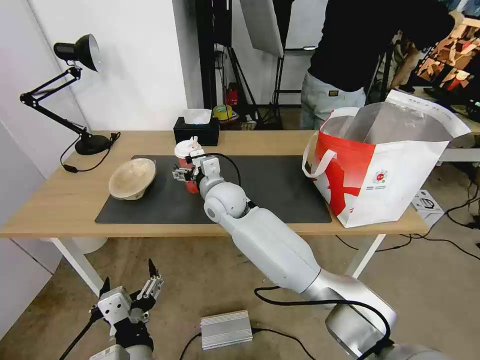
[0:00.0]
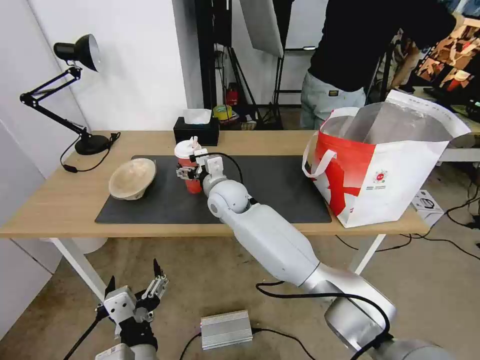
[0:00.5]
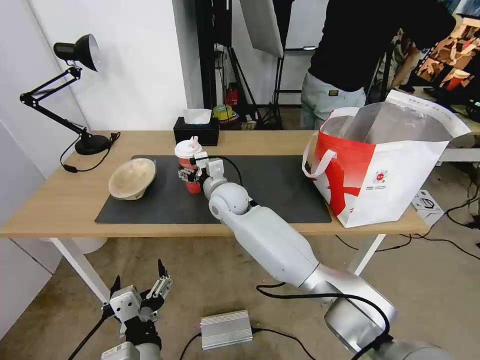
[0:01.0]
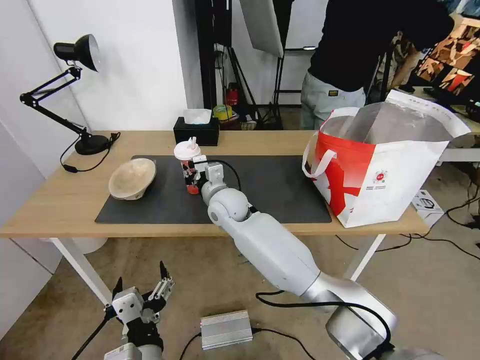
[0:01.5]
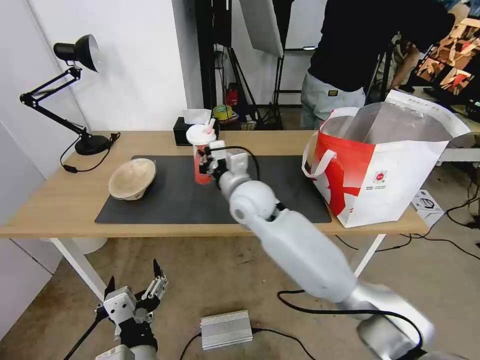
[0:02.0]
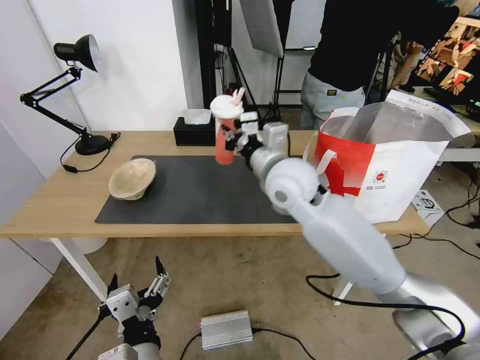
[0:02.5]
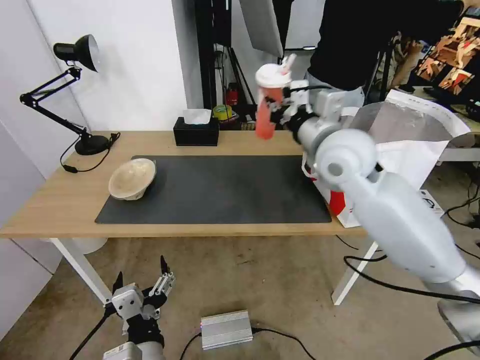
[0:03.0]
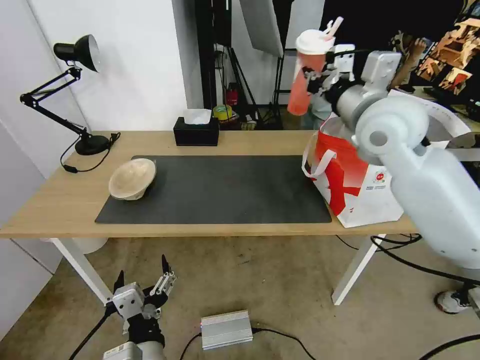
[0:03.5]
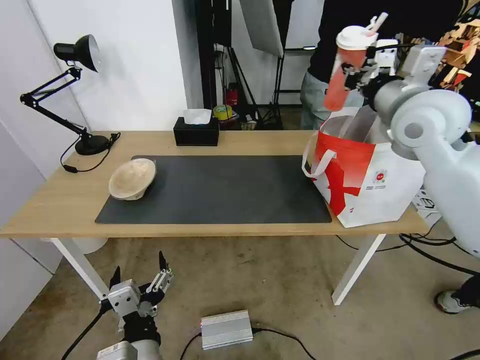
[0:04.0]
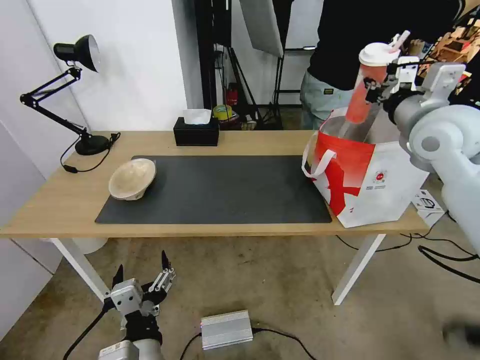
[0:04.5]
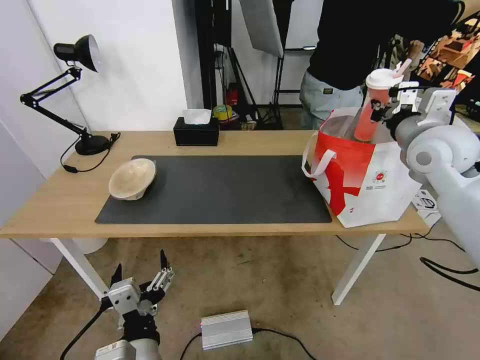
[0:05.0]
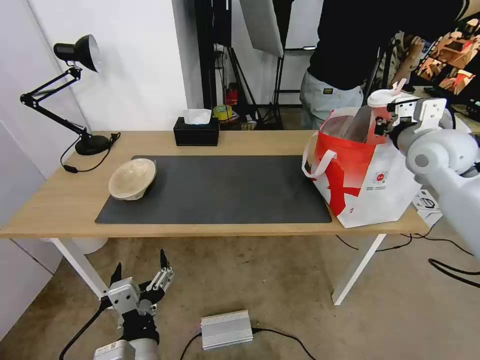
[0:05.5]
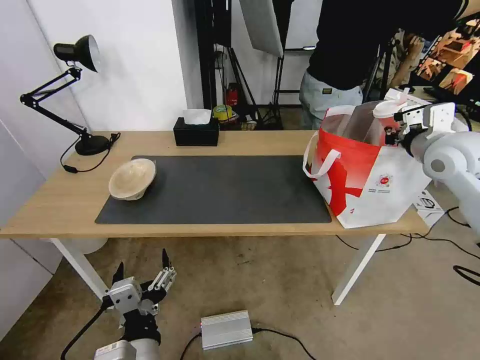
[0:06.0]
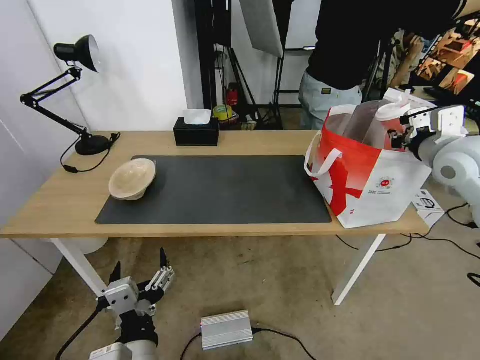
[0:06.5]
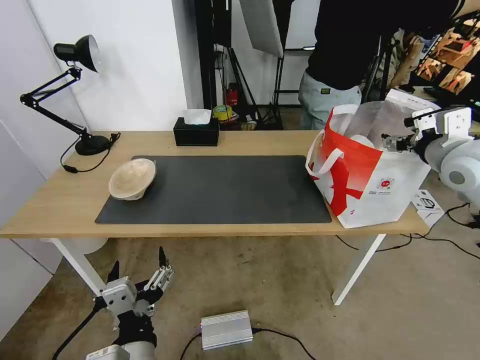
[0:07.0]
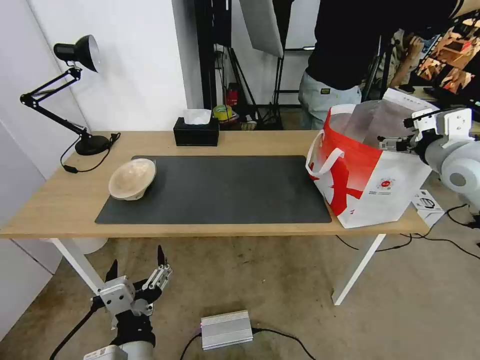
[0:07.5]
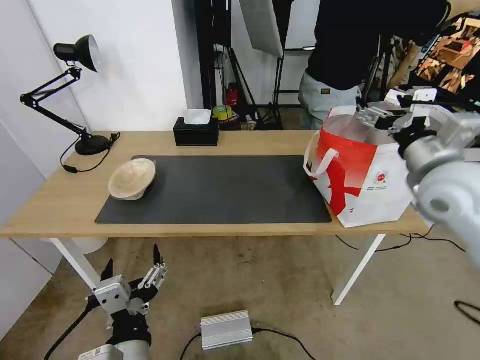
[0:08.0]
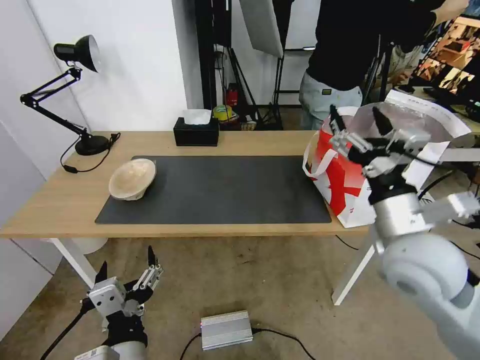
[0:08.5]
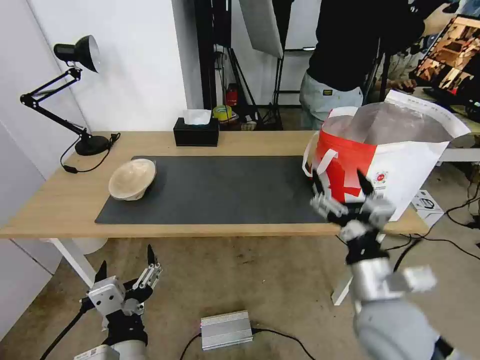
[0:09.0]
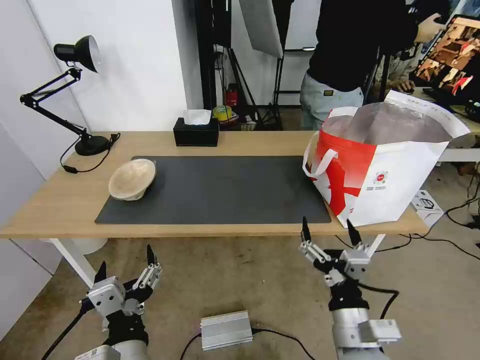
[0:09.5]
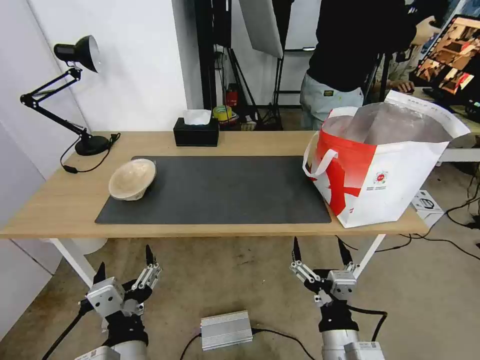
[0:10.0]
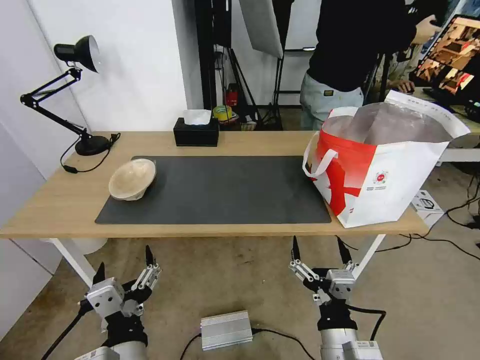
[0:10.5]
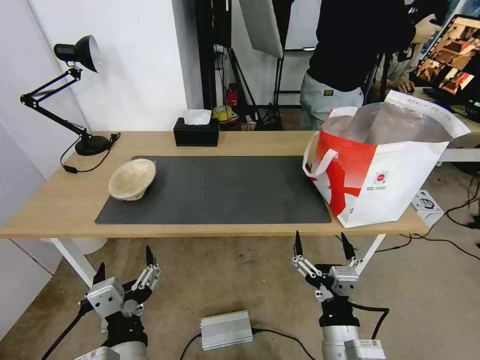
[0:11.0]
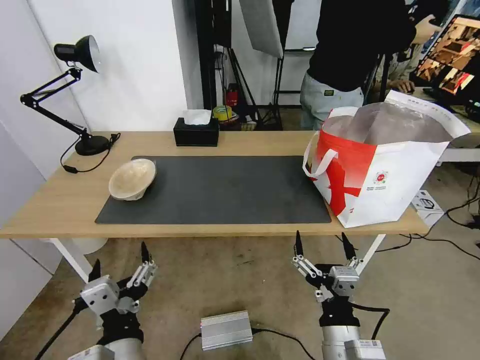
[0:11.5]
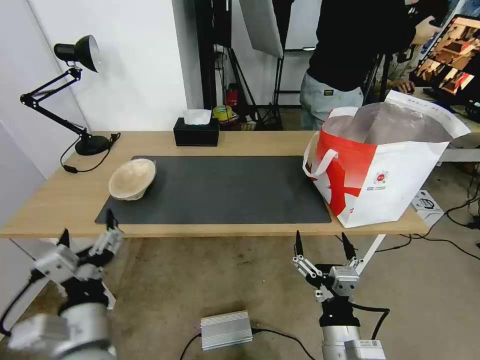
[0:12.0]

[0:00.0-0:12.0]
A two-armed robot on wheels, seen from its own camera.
Task of the whole recording: Pick up the trash from the table and place it into the takeout bag.
0.0 to 2.0 s: The right gripper heads to the right, covering about 5 cm, and closes its fingers.
2.0 to 4.0 s: The right gripper heads to the right and upward, covering some 35 cm.
4.0 to 6.0 s: The right gripper travels to the right and downward by roughly 15 cm.
6.0 to 8.0 s: The right gripper travels backward and to the left by about 10 cm, and opens up.
8.0 to 10.0 s: The right gripper heads backward, downward and to the left, covering about 40 cm.
10.0 to 12.0 s: The left gripper shifts some 5 cm to the left.

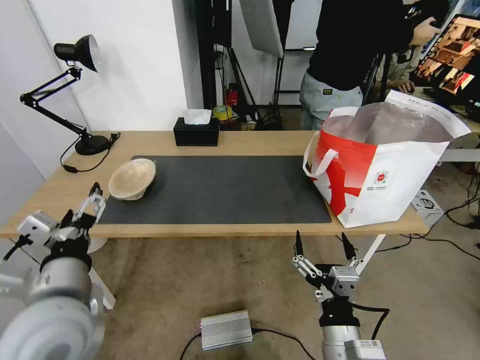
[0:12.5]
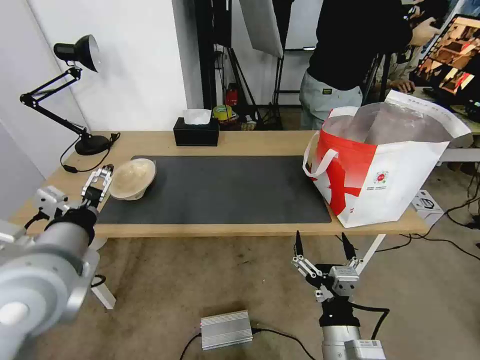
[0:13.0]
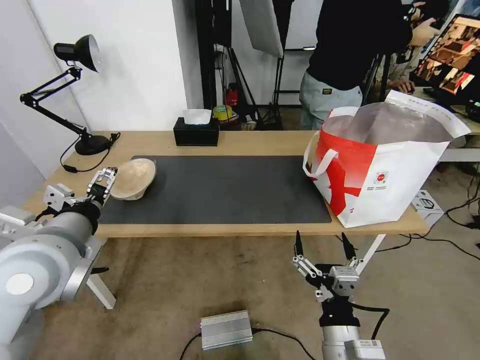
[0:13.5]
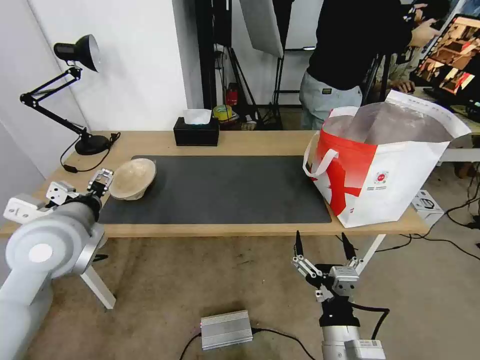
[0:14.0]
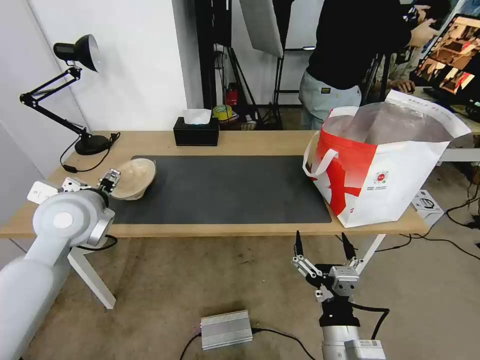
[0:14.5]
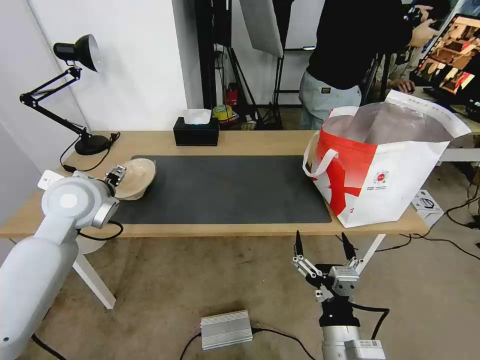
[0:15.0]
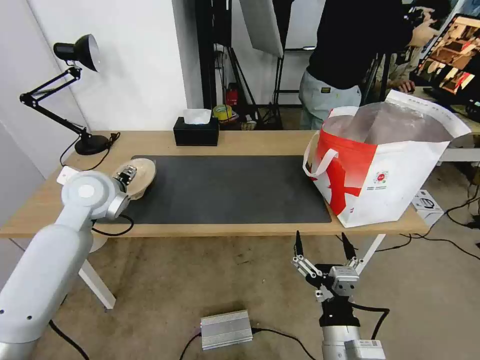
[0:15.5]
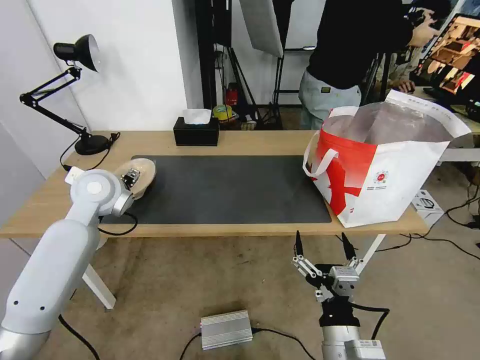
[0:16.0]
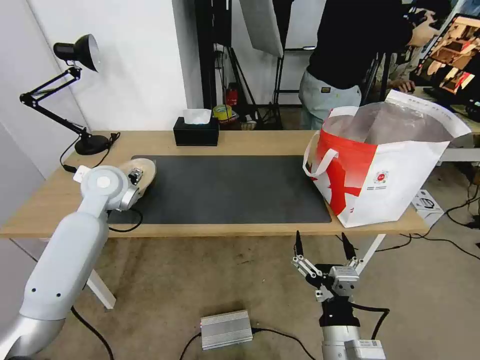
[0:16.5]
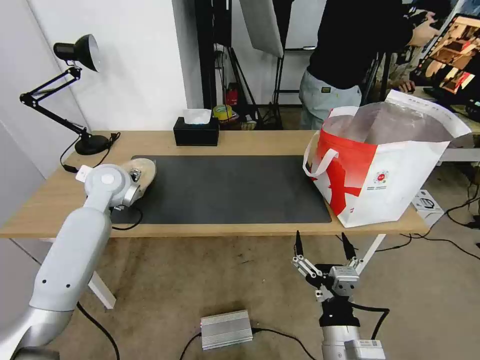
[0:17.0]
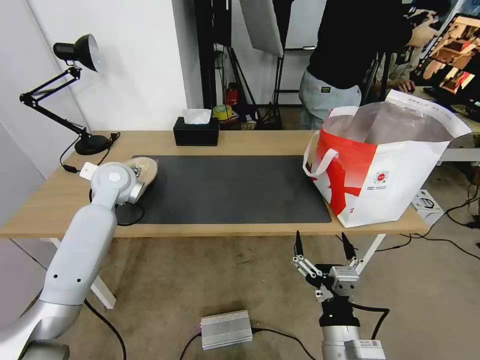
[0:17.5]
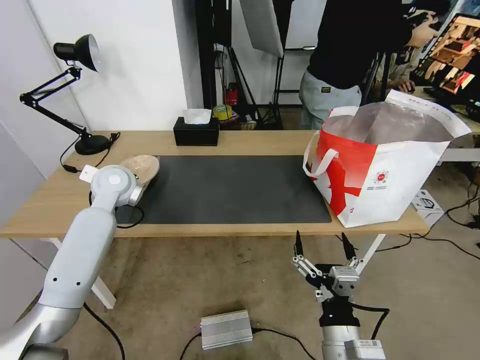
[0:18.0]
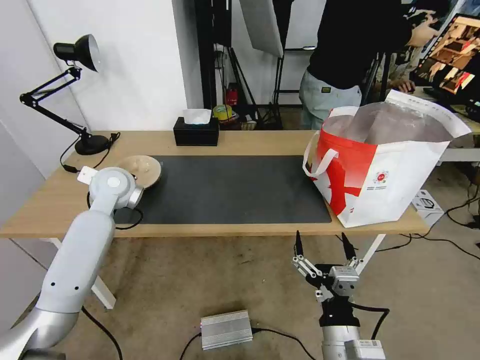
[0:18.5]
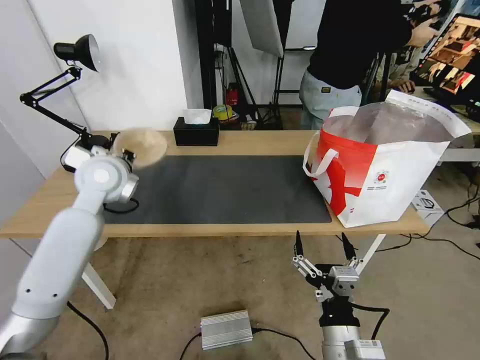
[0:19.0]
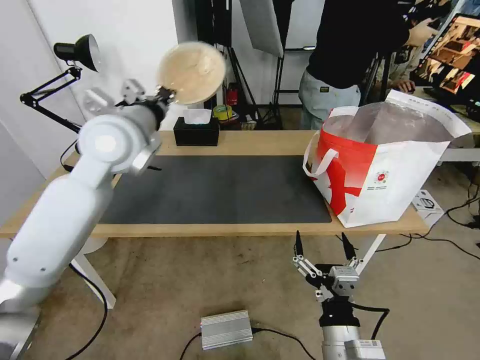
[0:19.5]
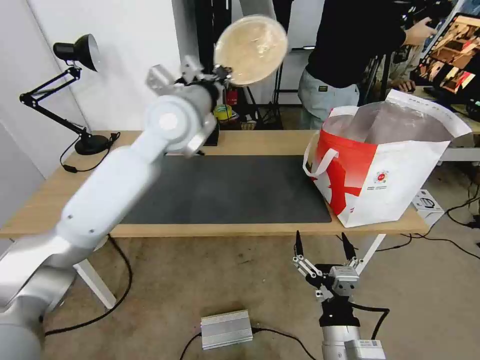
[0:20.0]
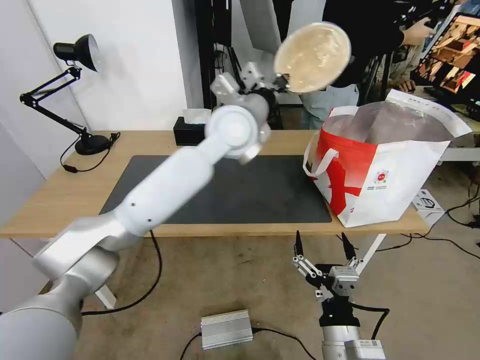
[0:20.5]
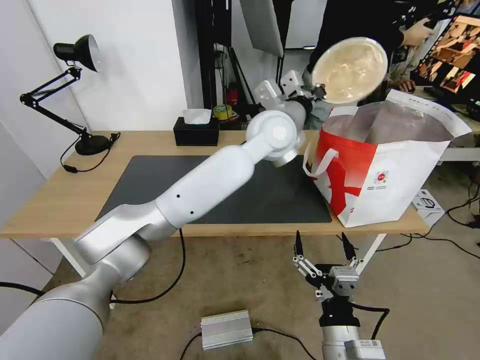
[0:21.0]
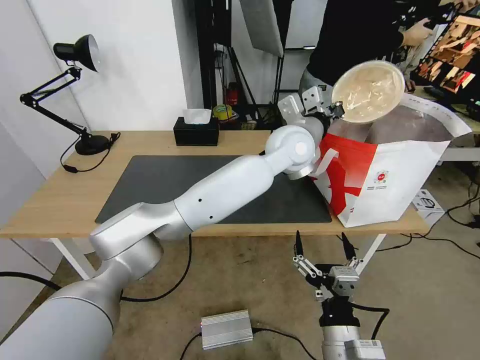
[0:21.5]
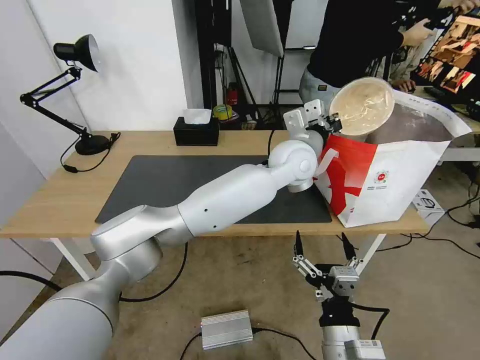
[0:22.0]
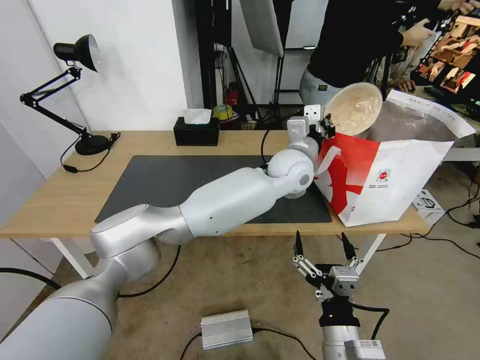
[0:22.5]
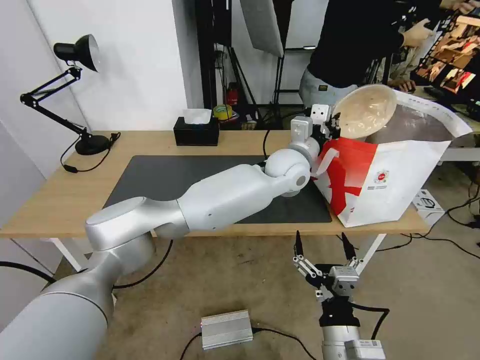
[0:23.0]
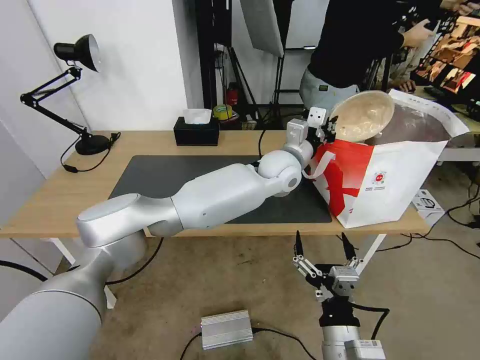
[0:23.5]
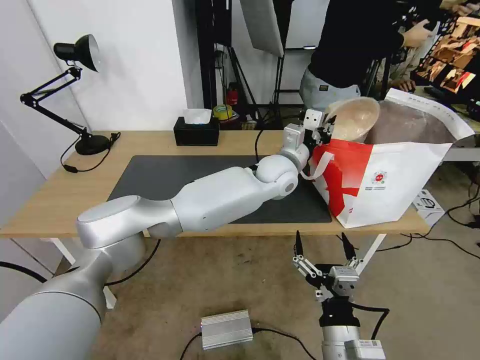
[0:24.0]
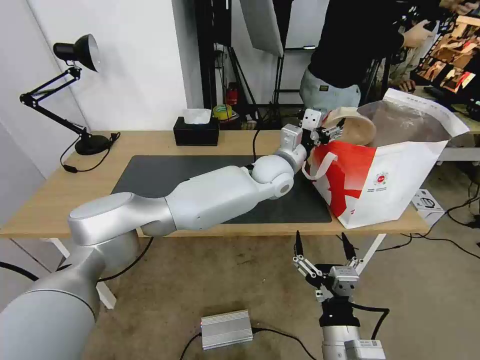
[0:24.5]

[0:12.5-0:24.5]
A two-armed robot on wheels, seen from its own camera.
Task of the whole recording: Pick up the trash from the table and place it into the takeout bag.
12.5 to 14.5 s: The left gripper is displaced forward by approximately 15 cm.
14.5 to 16.5 s: The left gripper travels forward by about 10 cm.
16.5 to 18.5 s: The left gripper closes.
18.5 to 20.5 s: The left gripper is displaced to the right and upward by approximately 30 cm.
20.5 to 22.5 s: The left gripper goes roughly 15 cm to the right and downward.
22.5 to 24.5 s: The left gripper opens its fingers.

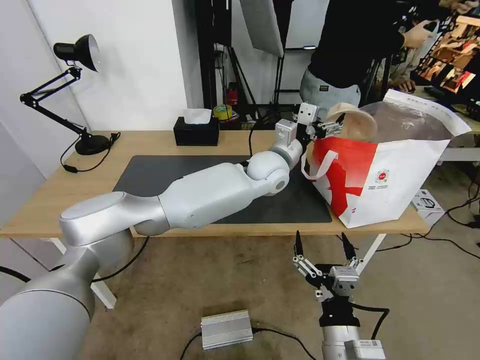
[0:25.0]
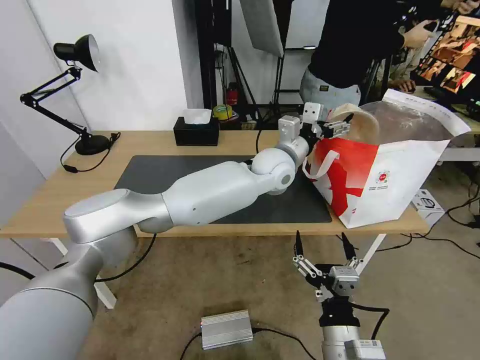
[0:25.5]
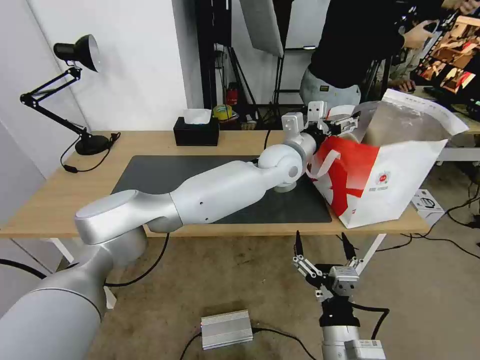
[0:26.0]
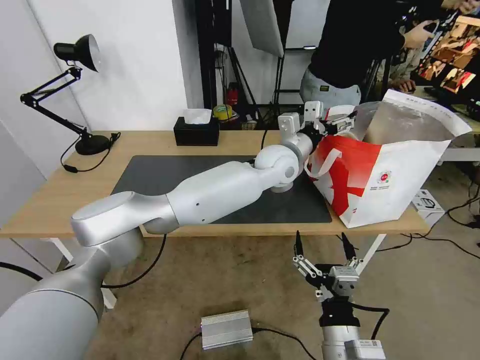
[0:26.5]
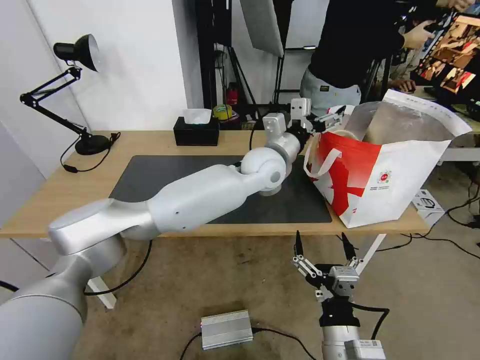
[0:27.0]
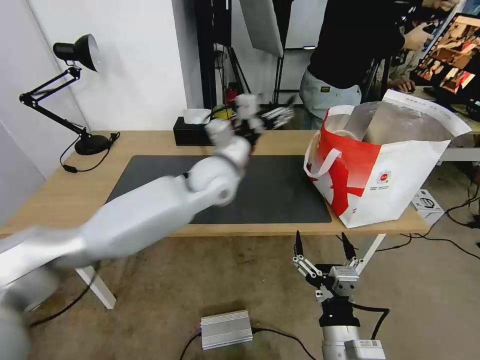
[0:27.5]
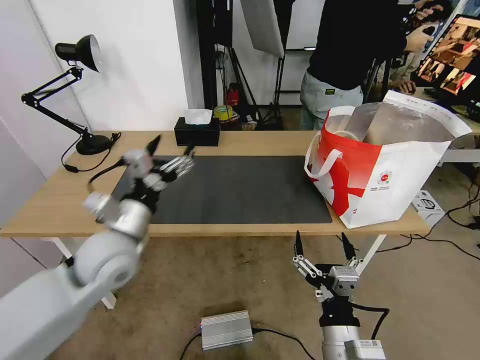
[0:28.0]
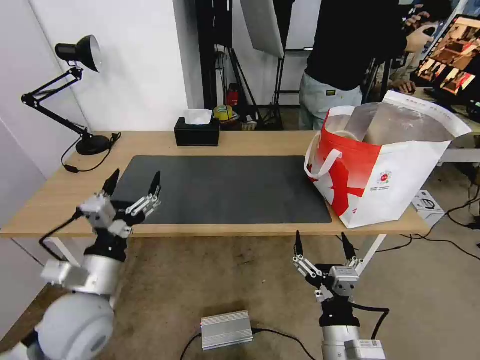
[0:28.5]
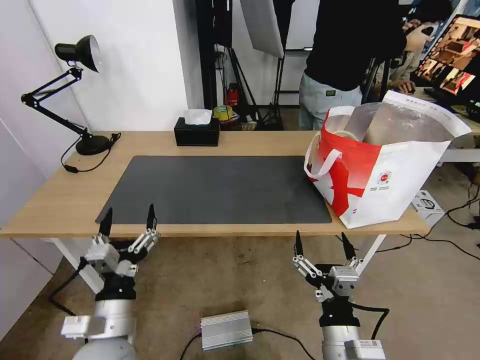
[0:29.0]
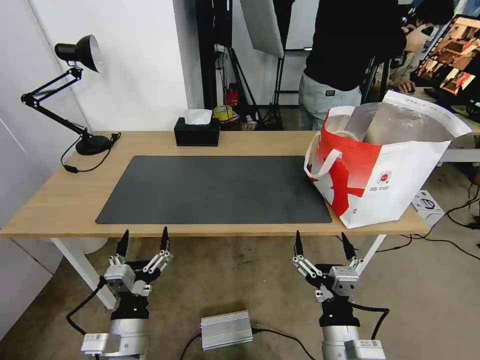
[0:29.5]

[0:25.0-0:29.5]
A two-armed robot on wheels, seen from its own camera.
Task of the whole recording: Pick up the trash from the table and place it into the takeout bag.
27.0 to 29.5 s: The left gripper goes about 50 cm backward, to the left and downward.
